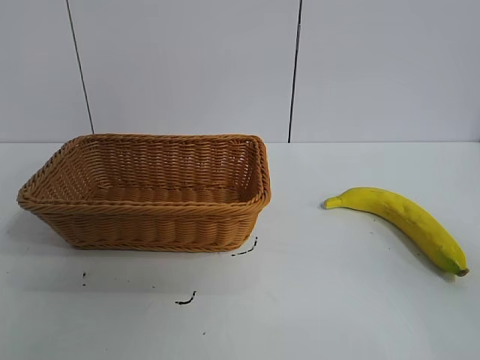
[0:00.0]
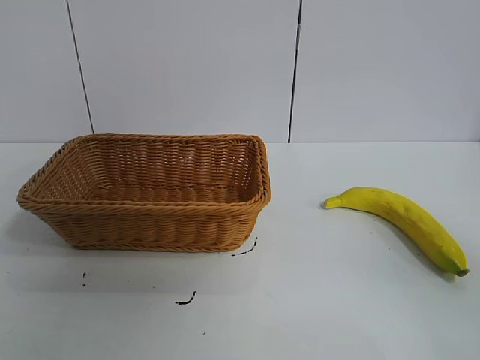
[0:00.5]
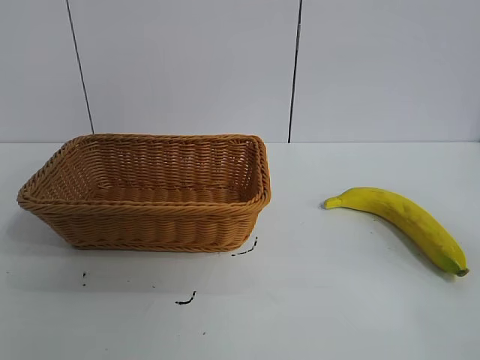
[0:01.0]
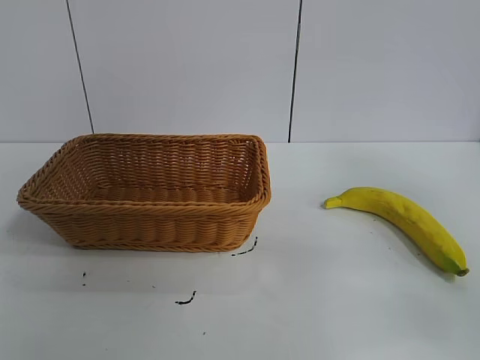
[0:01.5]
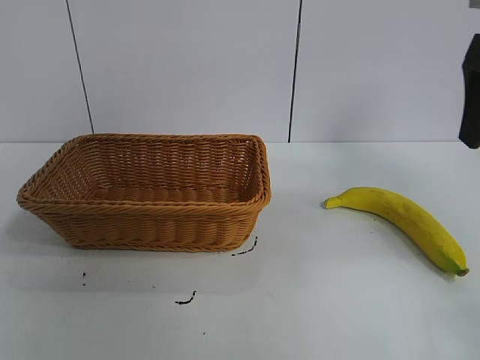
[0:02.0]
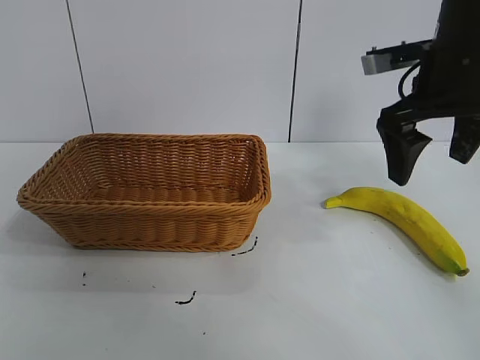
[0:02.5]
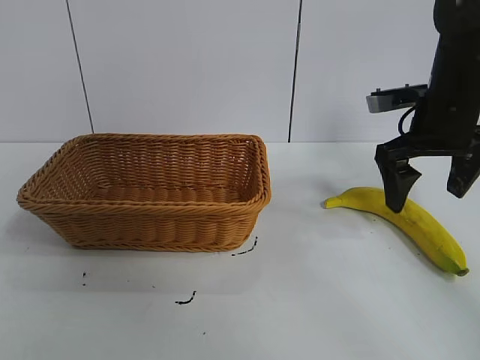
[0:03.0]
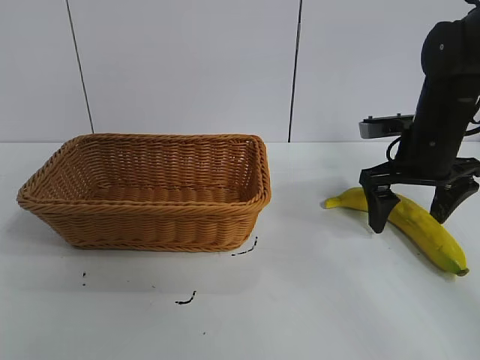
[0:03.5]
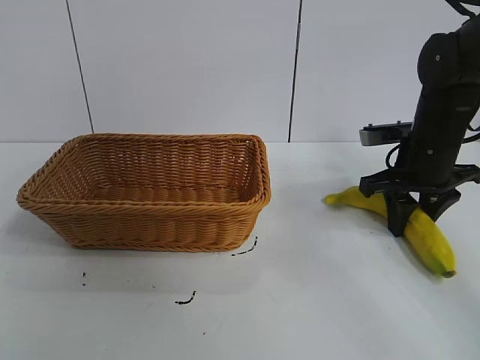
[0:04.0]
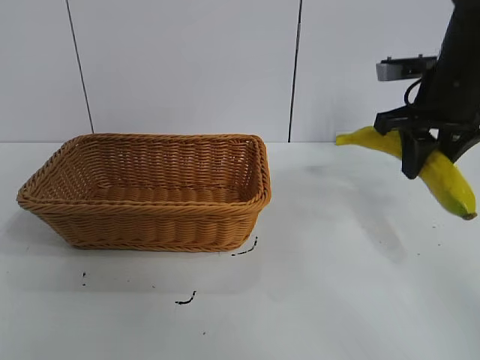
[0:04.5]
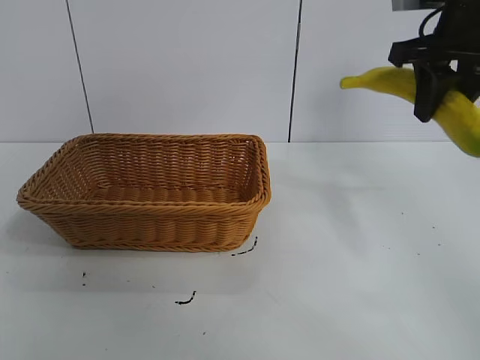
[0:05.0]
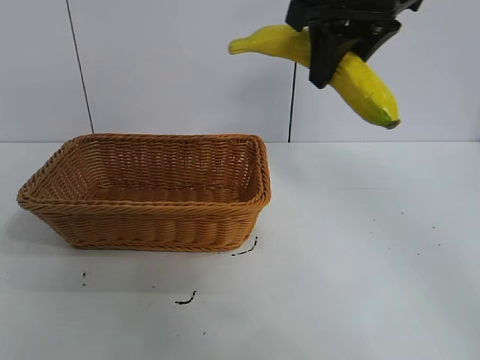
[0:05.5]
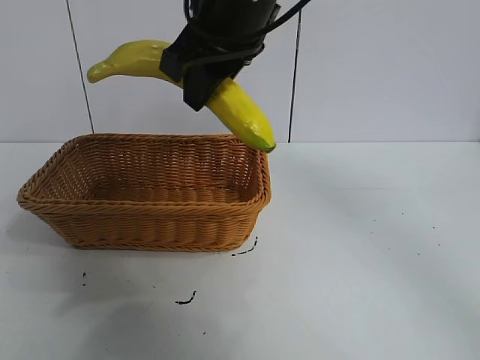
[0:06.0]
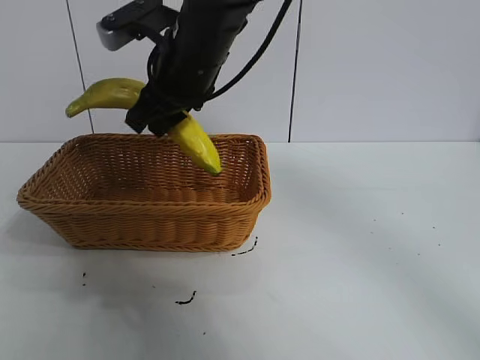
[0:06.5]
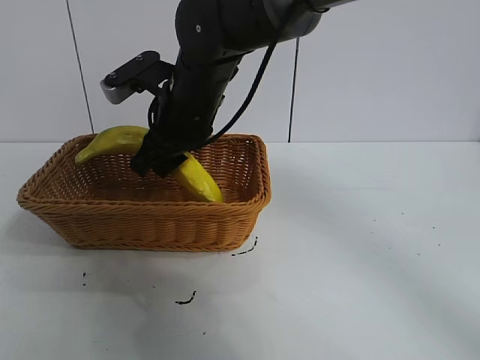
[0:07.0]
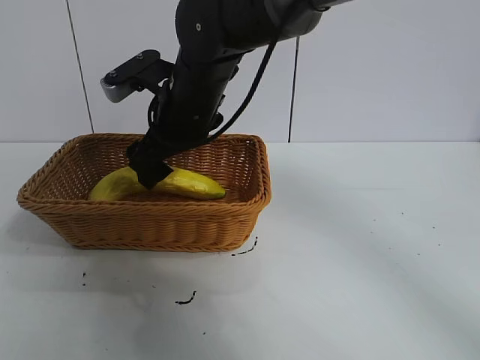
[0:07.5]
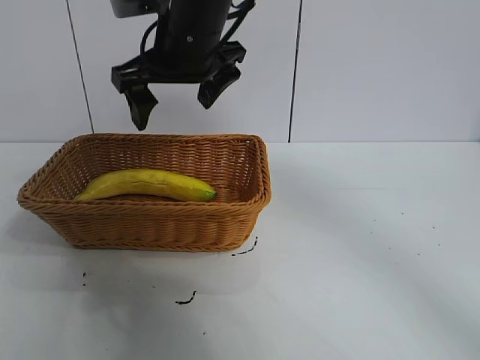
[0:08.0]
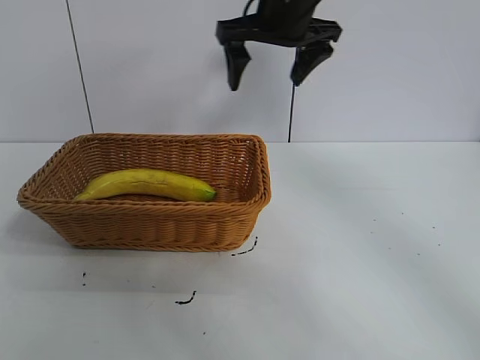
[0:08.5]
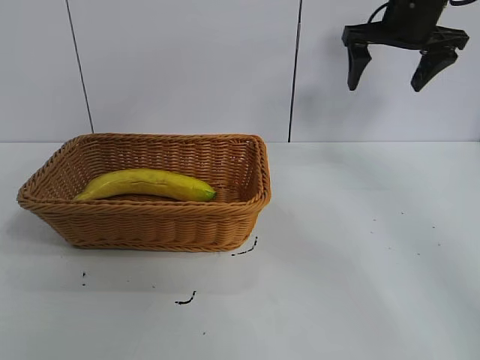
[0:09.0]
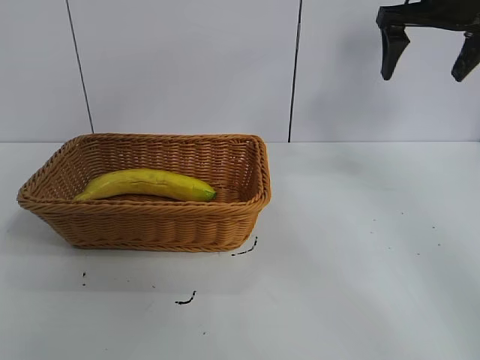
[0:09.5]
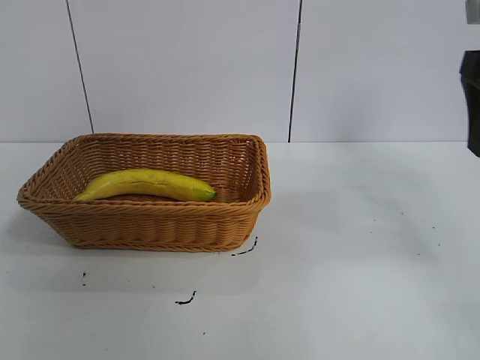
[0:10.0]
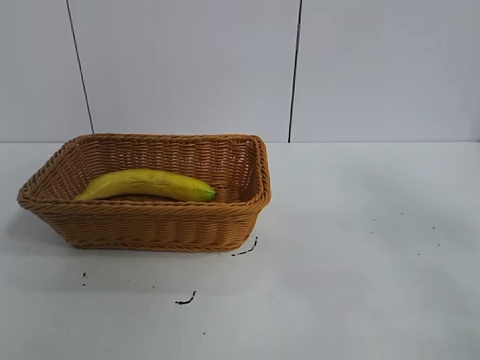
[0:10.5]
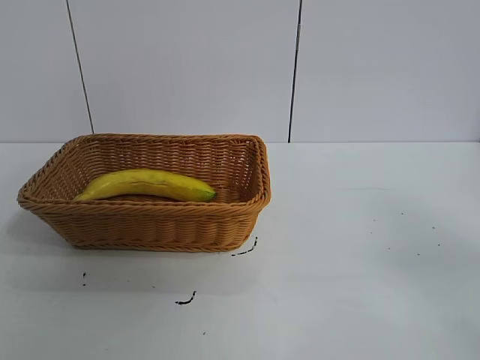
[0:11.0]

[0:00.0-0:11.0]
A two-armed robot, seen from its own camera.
Task of the whole recording: pick up the banana and put it into the basket.
Step, 0:01.0 to 0:04.0: Grasp the banana with right gripper.
Step, 0:04.5 to 0:07.5: Place the banana in the basket with right gripper.
